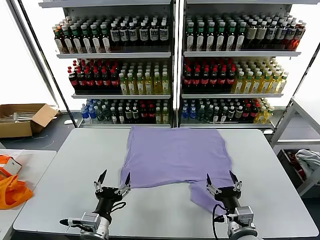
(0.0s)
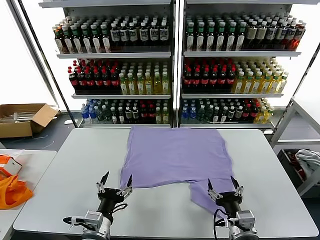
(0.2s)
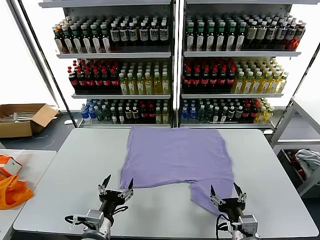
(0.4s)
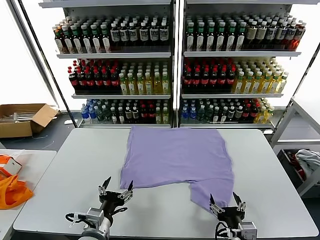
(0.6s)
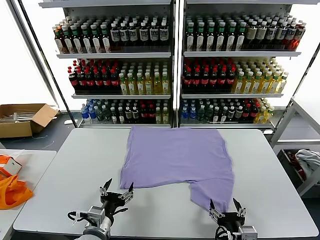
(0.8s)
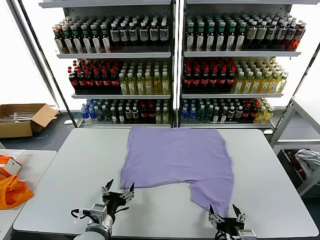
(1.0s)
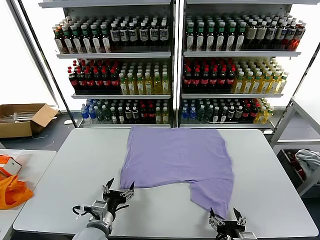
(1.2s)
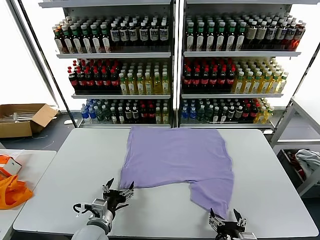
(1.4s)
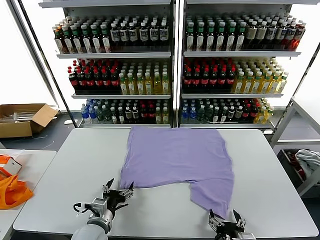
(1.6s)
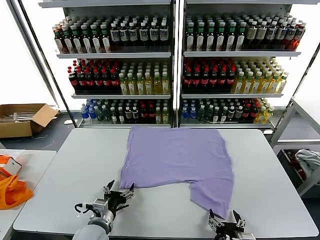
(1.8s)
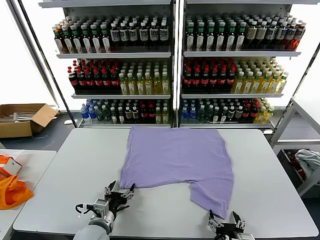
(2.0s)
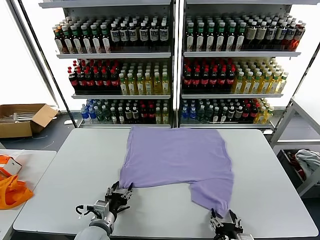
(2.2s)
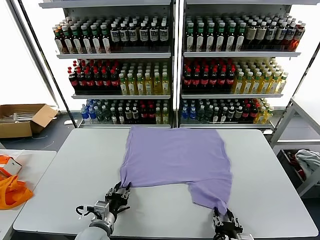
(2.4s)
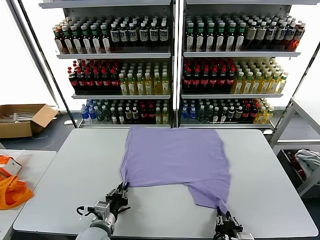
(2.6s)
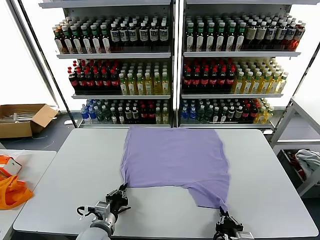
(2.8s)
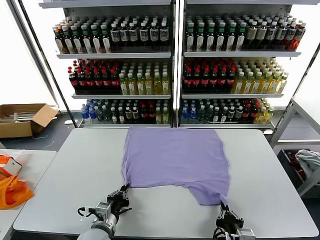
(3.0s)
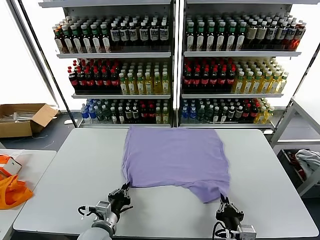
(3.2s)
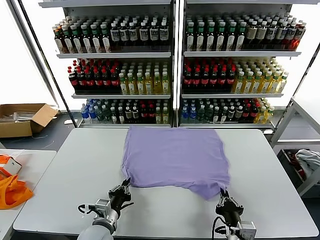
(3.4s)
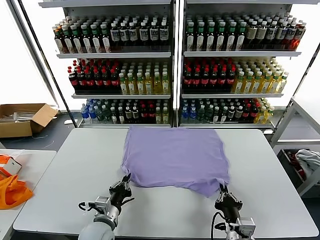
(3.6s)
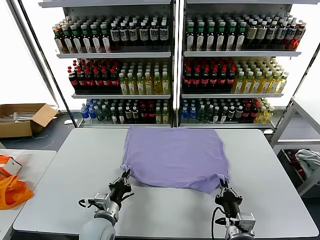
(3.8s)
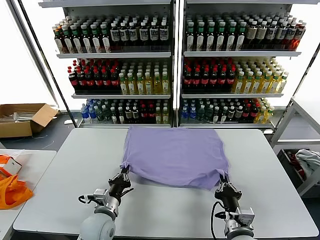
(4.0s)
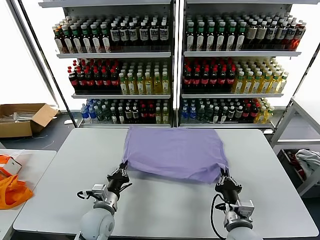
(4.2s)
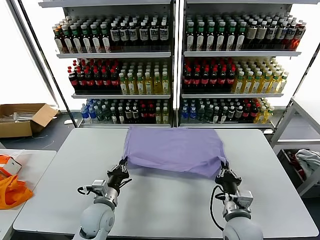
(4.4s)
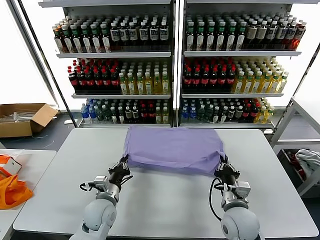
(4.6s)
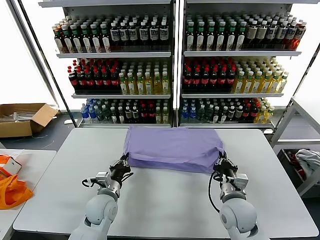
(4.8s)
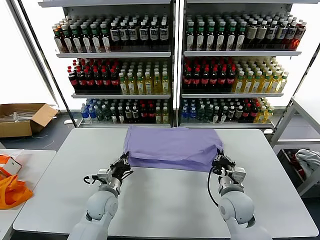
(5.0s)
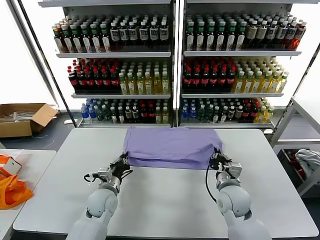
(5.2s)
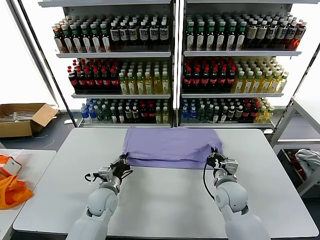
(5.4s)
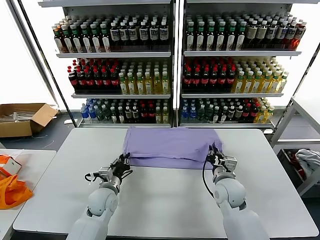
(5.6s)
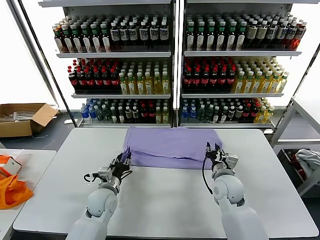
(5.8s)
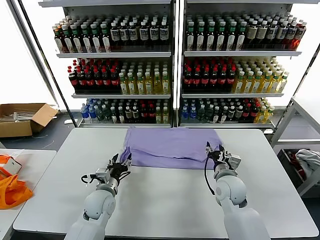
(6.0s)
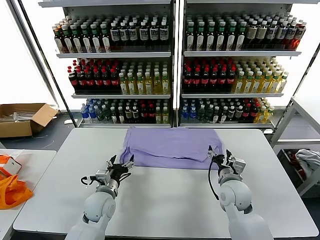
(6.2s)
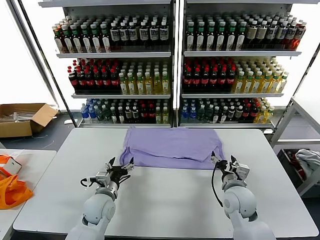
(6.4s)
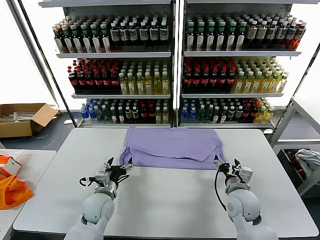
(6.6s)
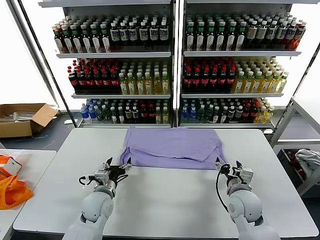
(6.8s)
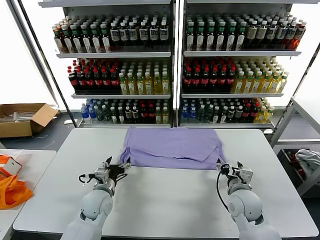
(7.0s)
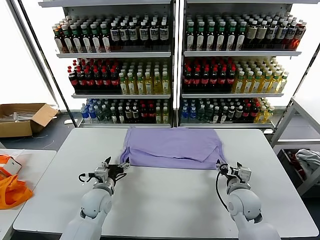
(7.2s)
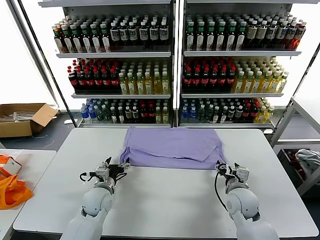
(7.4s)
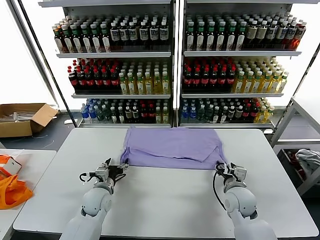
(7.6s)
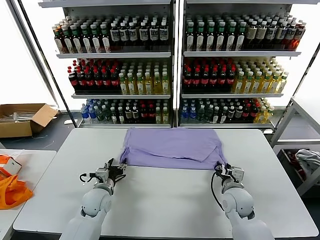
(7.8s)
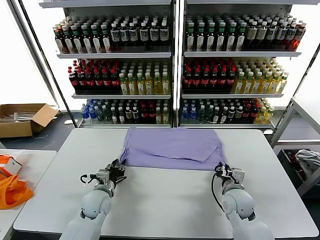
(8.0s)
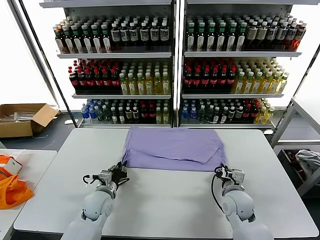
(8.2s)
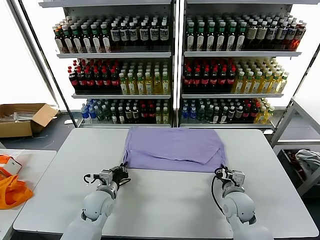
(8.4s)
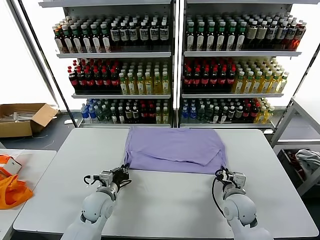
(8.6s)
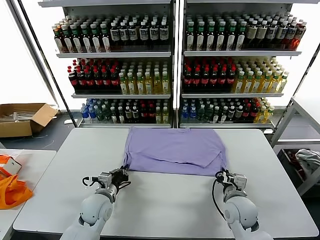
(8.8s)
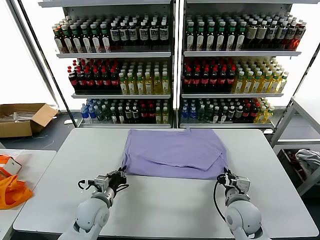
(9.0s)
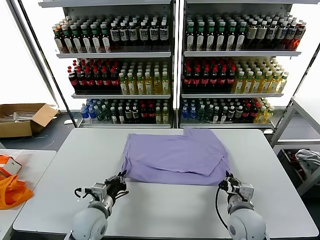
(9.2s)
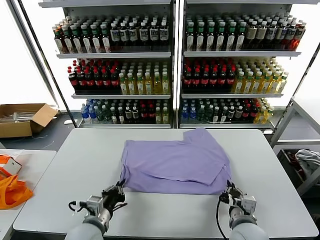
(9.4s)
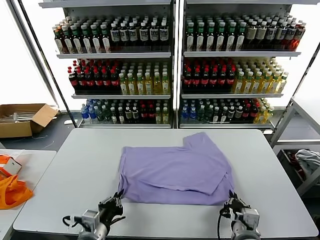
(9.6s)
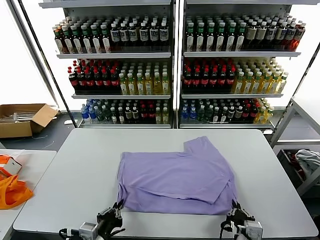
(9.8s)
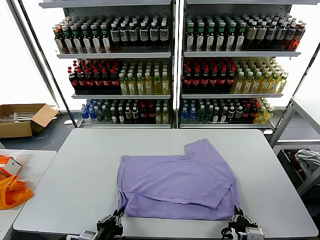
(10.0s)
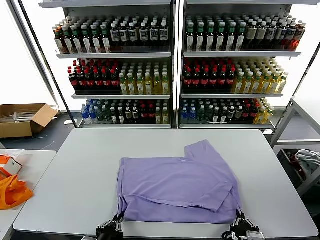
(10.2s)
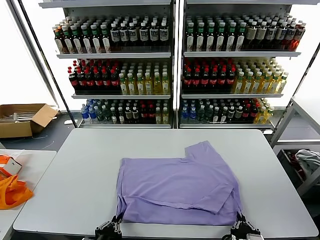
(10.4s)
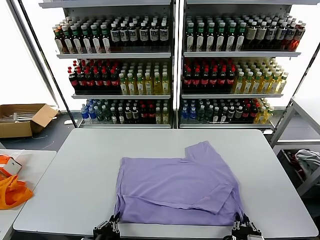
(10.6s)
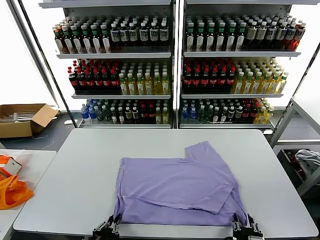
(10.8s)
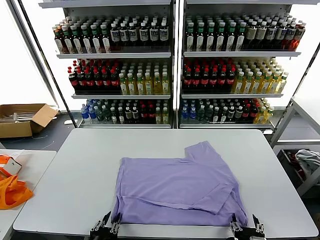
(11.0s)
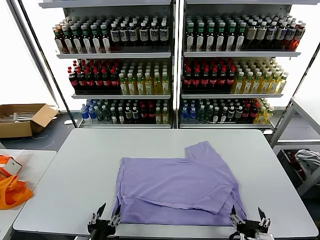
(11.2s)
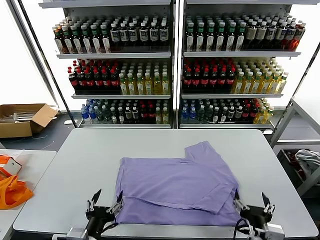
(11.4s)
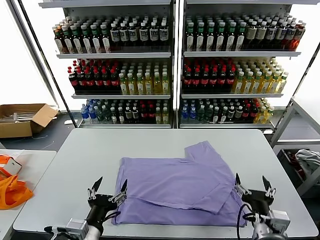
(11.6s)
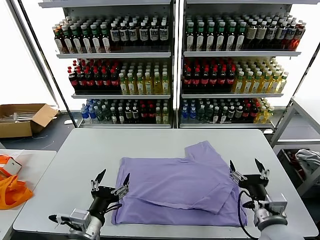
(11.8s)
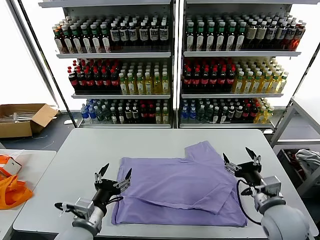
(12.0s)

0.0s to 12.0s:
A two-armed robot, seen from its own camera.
Task of the whole recording: fold and organize the clothes.
Step, 0.0s to 2.8s: use both grippers simultaneously to clamp the lower edge of the clothing fabric.
Step, 3.0s to 5.8s: use both grippers to drag the lower edge of the fabric forward and fold it over the upper edge.
Step, 6.0s to 11.0s: Drag the clothes downward with both gripper.
1.6s to 3.0s: The right gripper closes up, while the left gripper closes.
3.0s to 4.4s: The left gripper heads forward, covering roughly 5 cm. The right gripper goes approximately 10 cm forward.
4.4s to 6.0s: The left gripper moves forward, approximately 5 cm, and opens. Meanwhile the right gripper goes about 10 cm forward, and opens its fingers.
6.0s to 7.6s: The grippers stay close to where they were, moving slightly.
7.6s to 9.0s: Both grippers travel together backward, about 5 cm. The right gripper closes its fingers, while the left gripper closes its fingers.
9.0s to 10.4s: Both grippers travel together backward, some 20 cm.
10.4s to 12.0s: The left gripper travels forward by about 10 cm, and opens its fingers; the right gripper heads forward, to the right and upward, covering about 20 cm, and opens.

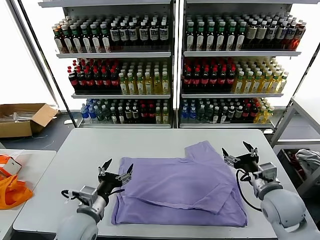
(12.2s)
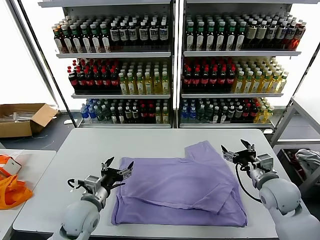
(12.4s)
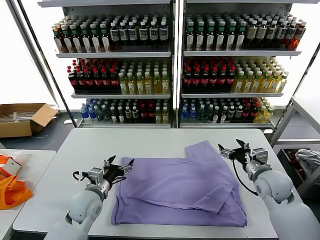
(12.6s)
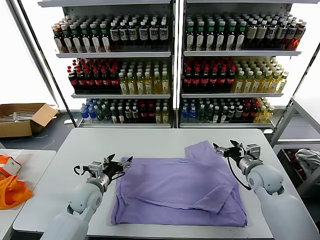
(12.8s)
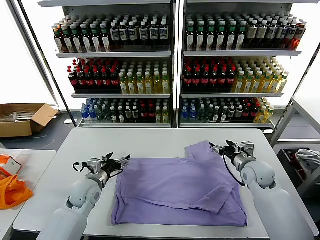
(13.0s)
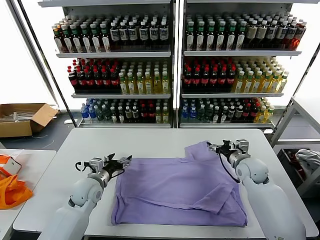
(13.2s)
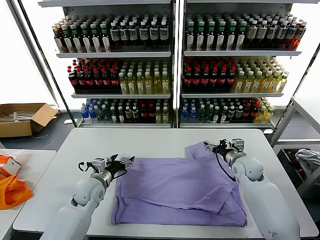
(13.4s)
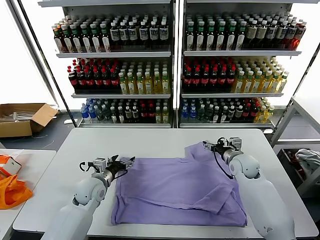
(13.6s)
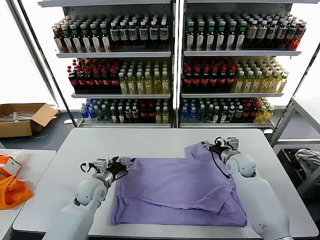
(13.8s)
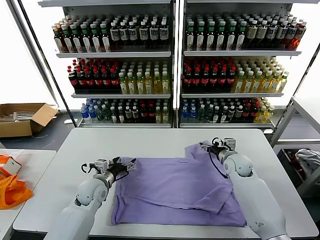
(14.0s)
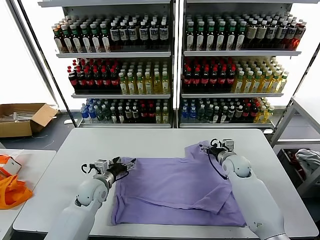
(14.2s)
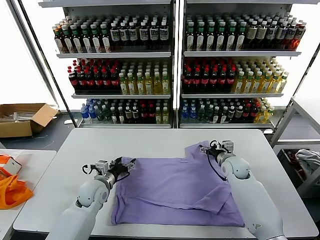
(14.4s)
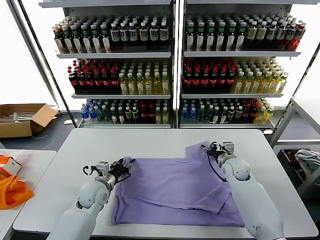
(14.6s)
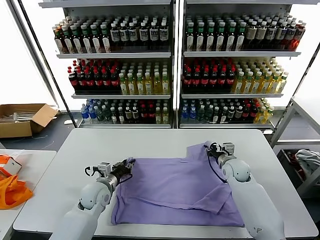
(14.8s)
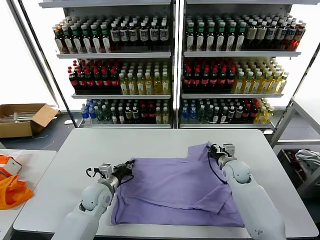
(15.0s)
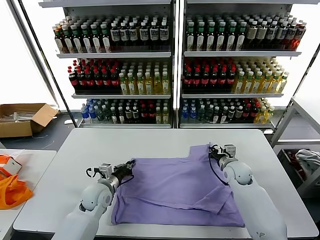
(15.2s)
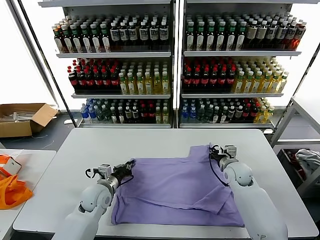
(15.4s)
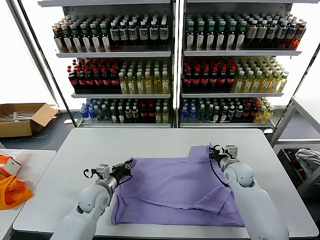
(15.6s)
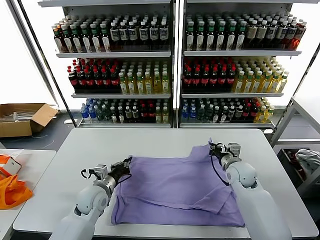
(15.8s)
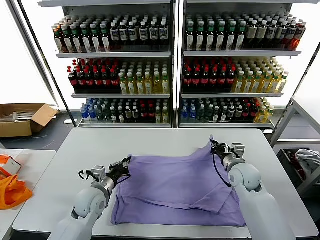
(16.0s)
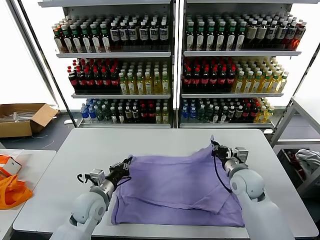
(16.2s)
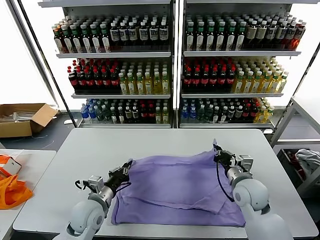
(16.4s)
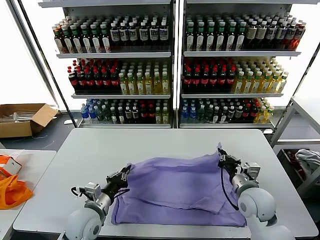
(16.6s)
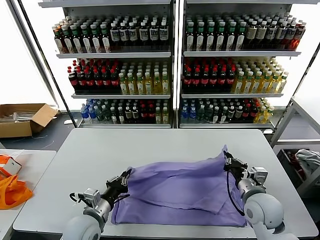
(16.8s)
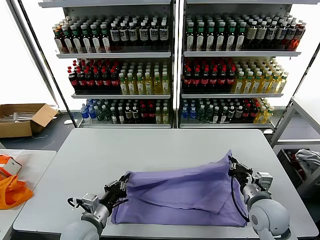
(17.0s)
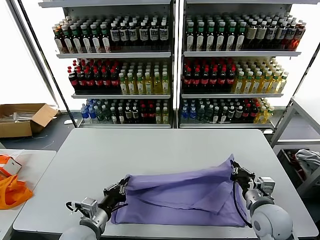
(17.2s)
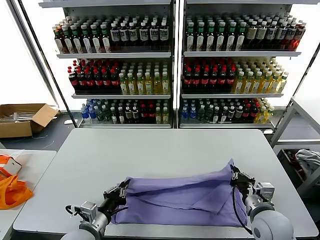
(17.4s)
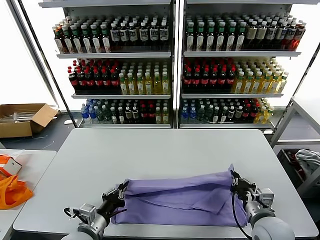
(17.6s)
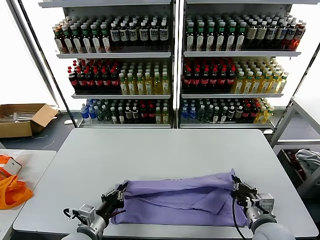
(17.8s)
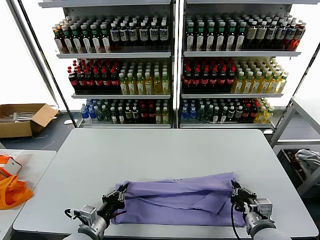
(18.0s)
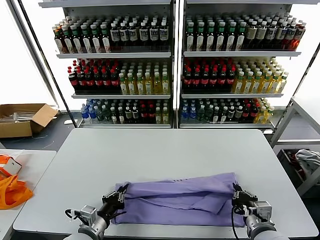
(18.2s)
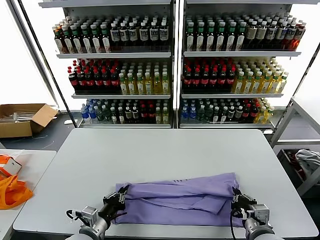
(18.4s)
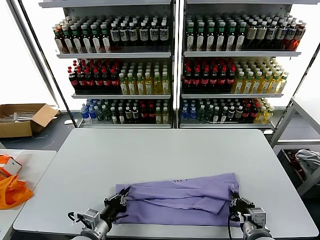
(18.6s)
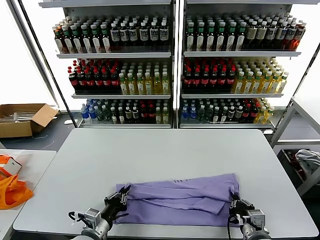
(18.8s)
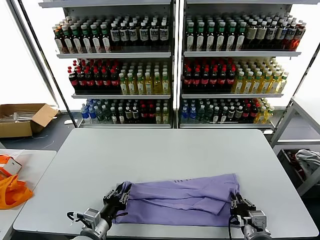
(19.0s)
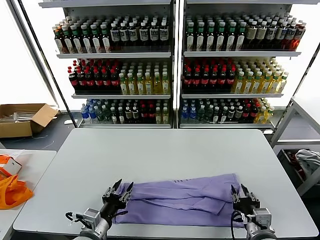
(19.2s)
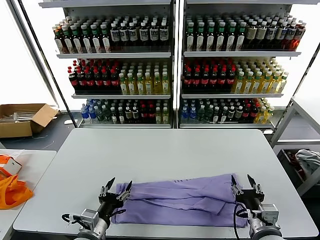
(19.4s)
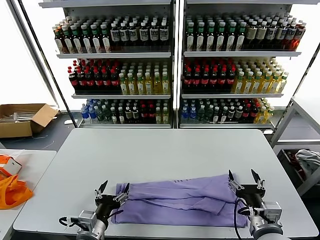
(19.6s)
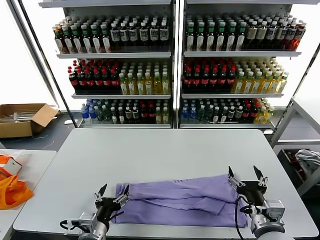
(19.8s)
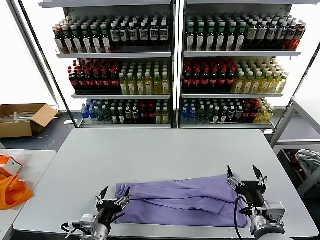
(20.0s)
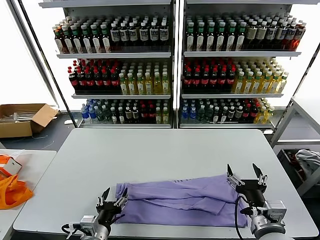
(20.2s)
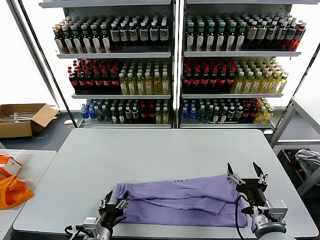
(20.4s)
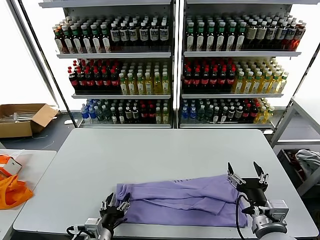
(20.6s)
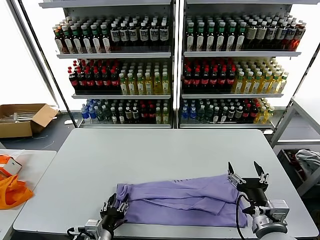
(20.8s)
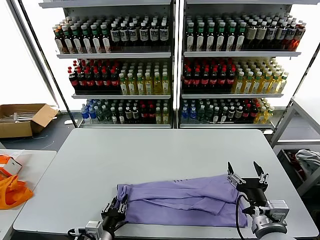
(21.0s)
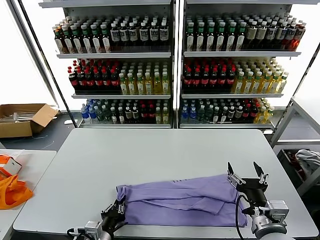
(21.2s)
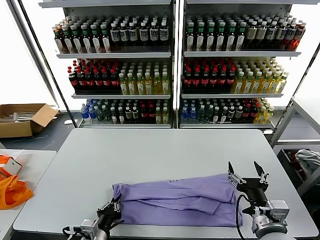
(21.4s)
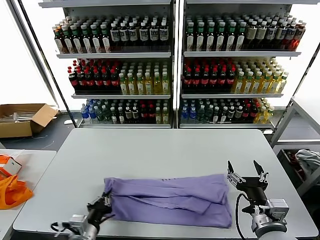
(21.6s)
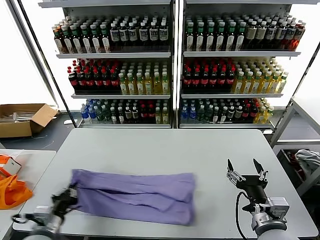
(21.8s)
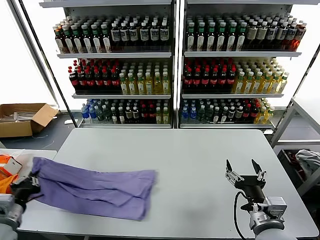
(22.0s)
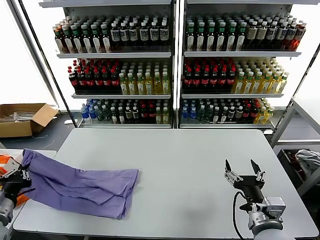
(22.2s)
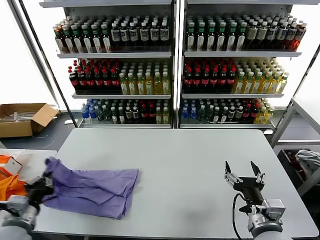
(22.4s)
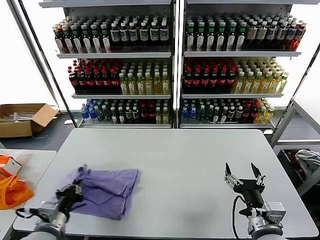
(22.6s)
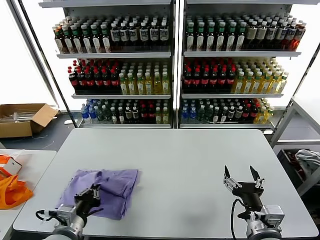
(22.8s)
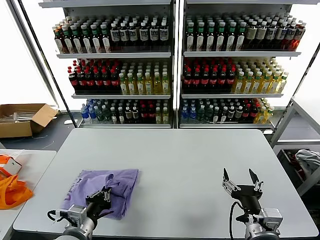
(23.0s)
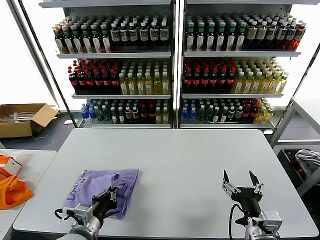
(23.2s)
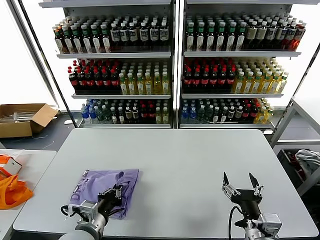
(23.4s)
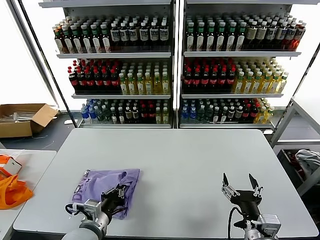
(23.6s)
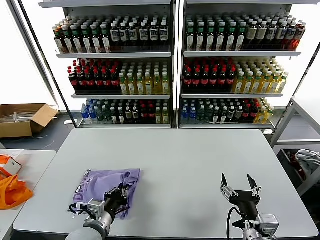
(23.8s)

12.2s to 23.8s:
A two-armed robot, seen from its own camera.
Task of the whole recording: fold and organize the clothes.
Step, 12.2s to 15.0s: use both grippers simultaneously to clamp the upper edge of the clothing fabric.
Step, 15.2s to 19.2s: use both grippers to drag the upper edge of the fabric backward and fold it over the lower edge.
Step, 19.4s to 21.2s: use the left gripper to clamp the left edge of the fabric.
12.2s to 13.6s: The left gripper heads forward, covering approximately 15 cm. The right gripper goes roughly 20 cm forward and downward.
13.6s to 15.0s: The left gripper closes up; the right gripper closes its fingers.
15.0s to 16.6s: The left gripper heads backward, covering roughly 10 cm, while the right gripper is displaced backward and upward by about 15 cm.
16.6s to 18.0s: The left gripper heads backward, covering roughly 5 cm, while the right gripper is displaced backward by approximately 10 cm.
18.0s to 19.4s: The right gripper opens up. Meanwhile the left gripper opens up.
19.4s to 21.0s: The left gripper changes place by some 5 cm.
21.0s to 22.4s: The left gripper moves to the left and upward, roughly 20 cm, and closes its fingers.
22.4s to 23.8s: The left gripper heads to the right, covering some 20 cm.
